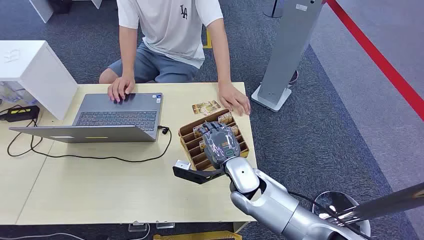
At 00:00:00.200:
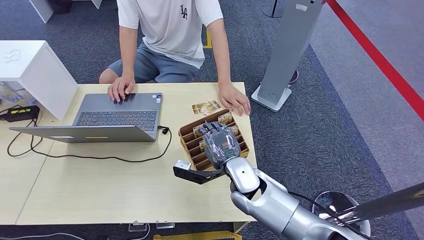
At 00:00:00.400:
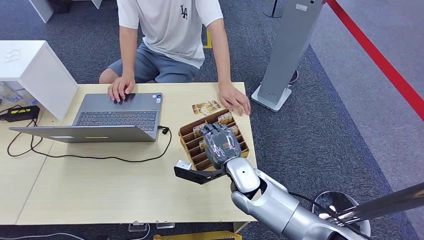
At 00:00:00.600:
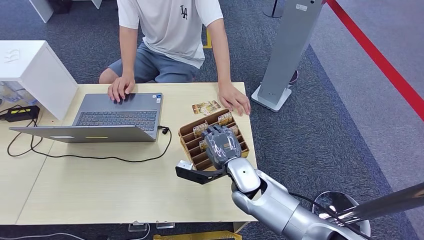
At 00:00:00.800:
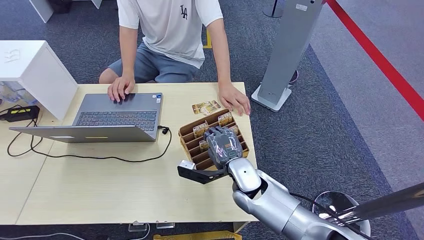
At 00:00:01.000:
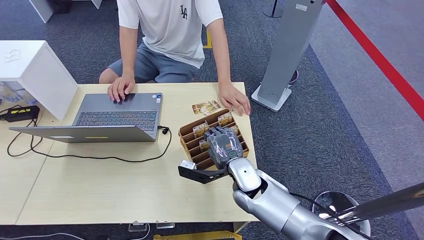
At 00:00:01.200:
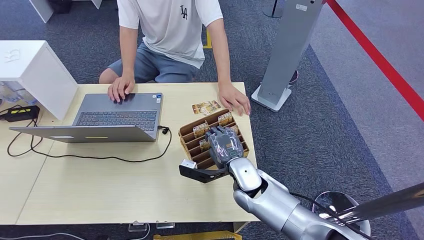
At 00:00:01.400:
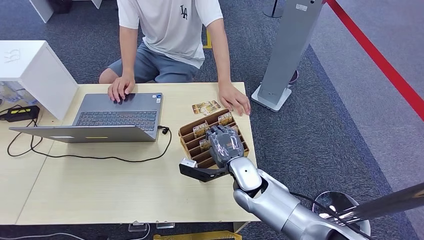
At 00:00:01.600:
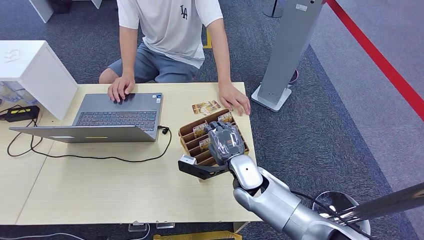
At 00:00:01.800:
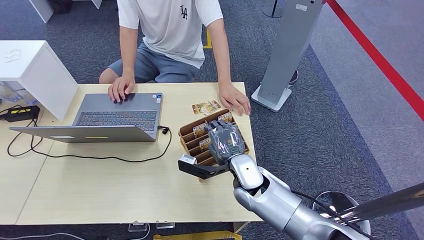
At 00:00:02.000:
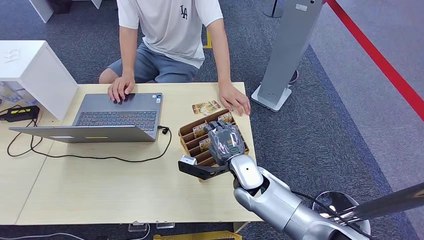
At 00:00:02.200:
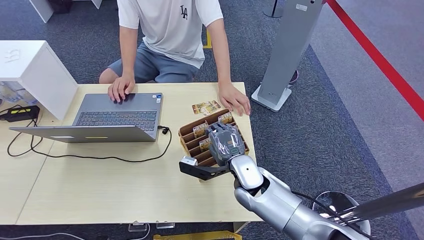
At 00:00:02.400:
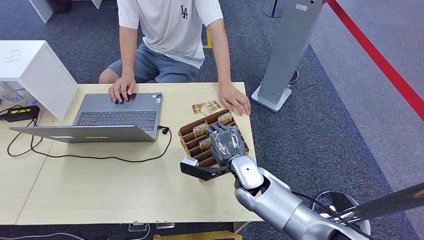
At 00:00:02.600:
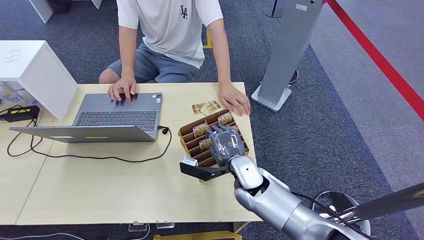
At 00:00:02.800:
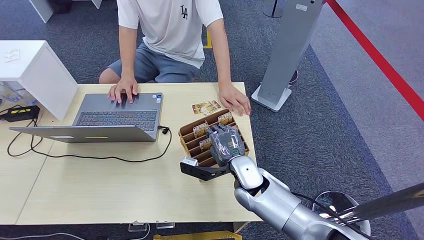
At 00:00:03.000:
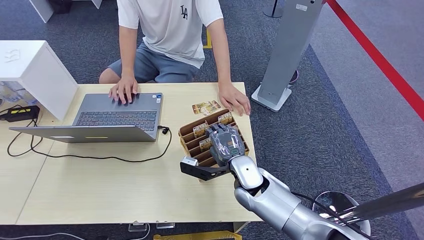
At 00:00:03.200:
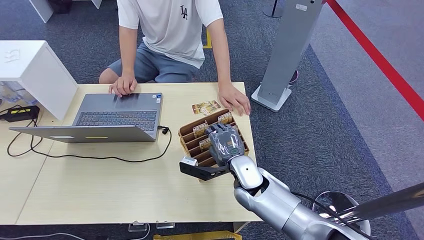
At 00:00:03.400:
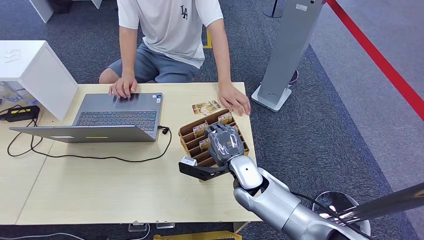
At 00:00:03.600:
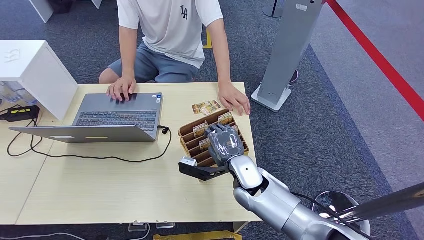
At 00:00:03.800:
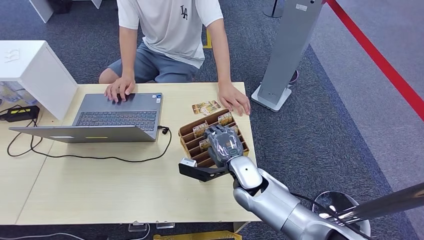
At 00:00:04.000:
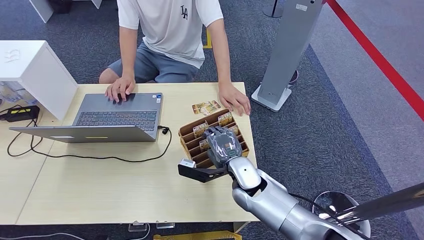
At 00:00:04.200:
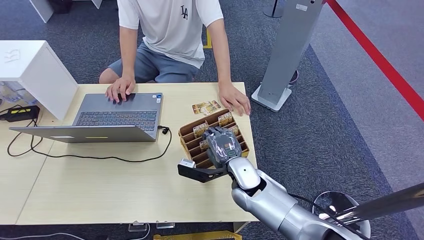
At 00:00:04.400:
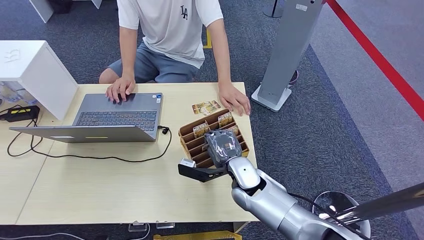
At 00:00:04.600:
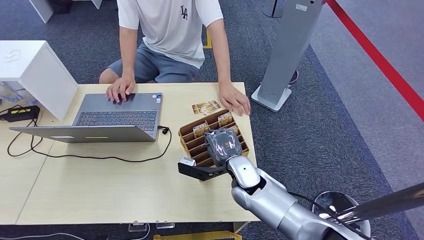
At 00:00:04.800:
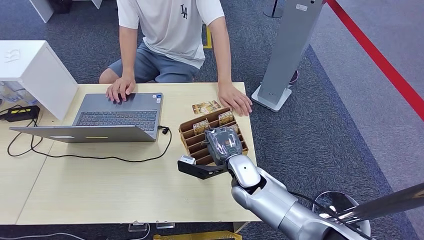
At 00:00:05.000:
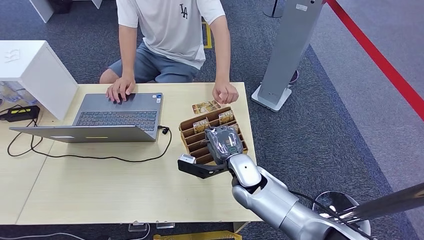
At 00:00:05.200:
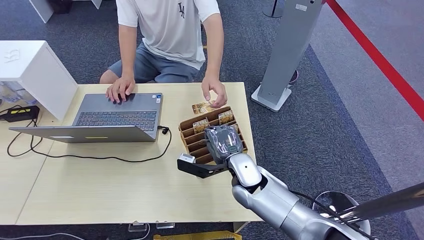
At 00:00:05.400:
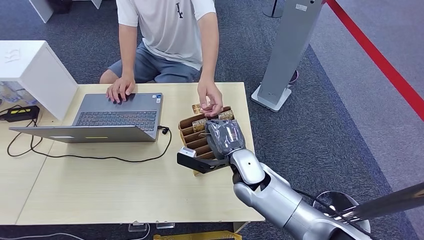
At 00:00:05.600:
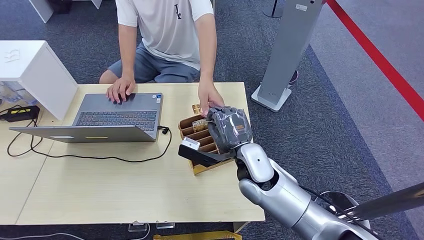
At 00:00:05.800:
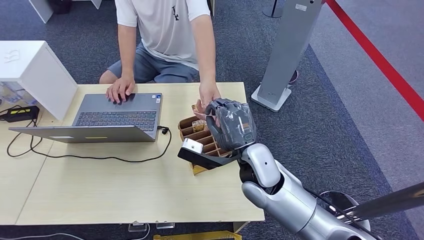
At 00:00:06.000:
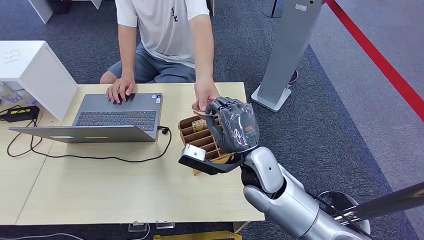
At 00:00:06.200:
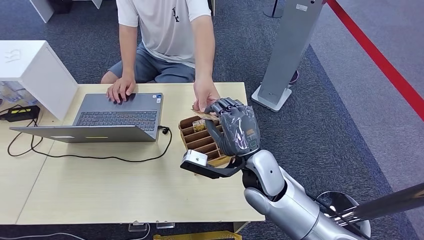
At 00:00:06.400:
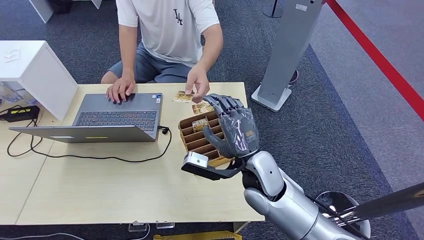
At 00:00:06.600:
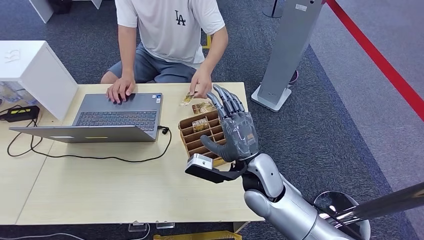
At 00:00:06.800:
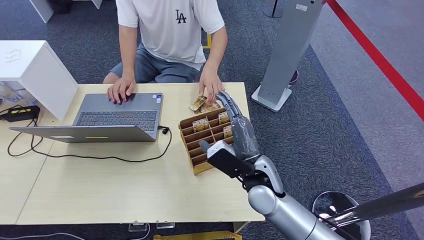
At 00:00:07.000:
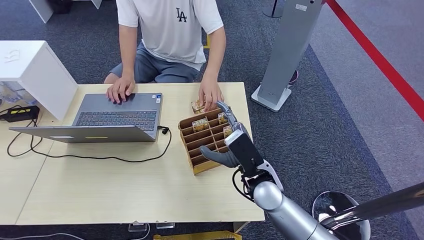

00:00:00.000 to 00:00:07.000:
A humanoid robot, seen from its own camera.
Step, 00:00:00.000 to 00:00:05.400: Pick up the room card from the card holder.
Step, 00:00:05.600 to 00:00:07.000: Hand the room card to the target.
00:00:01.400 to 00:00:02.800: The hands make only small movements.
00:00:02.800 to 00:00:04.200: The two hands keep their place.
00:00:04.200 to 00:00:05.600: The right hand heads upward, covering about 5 cm.

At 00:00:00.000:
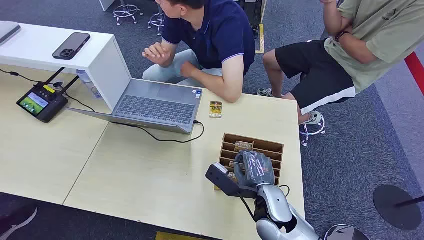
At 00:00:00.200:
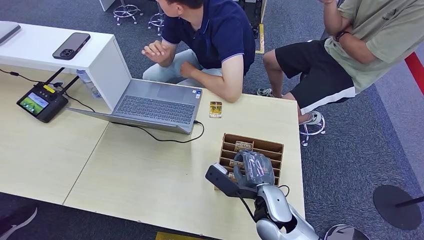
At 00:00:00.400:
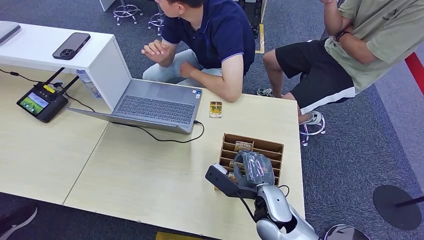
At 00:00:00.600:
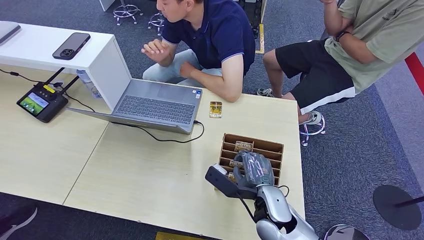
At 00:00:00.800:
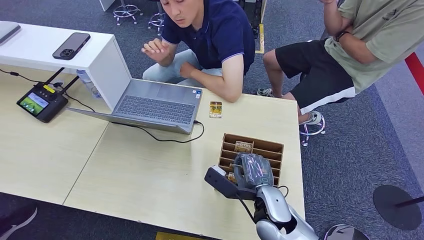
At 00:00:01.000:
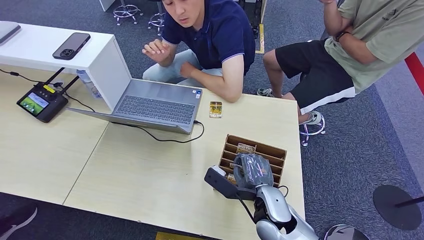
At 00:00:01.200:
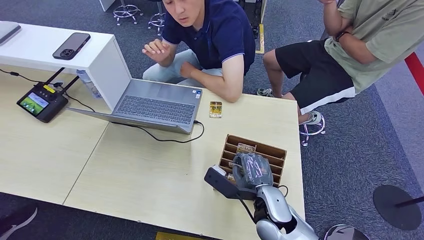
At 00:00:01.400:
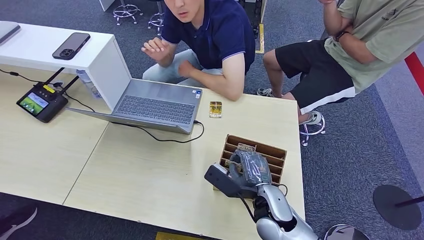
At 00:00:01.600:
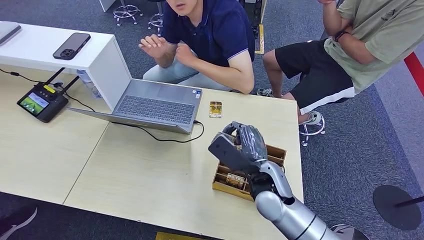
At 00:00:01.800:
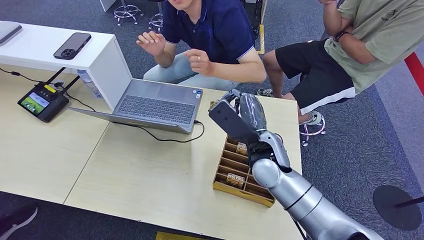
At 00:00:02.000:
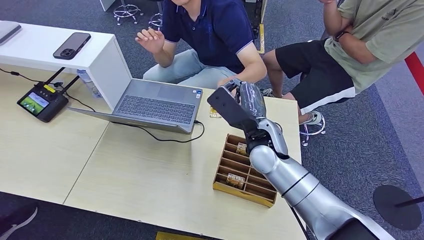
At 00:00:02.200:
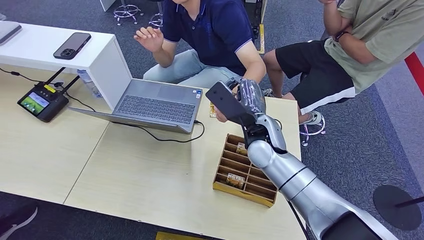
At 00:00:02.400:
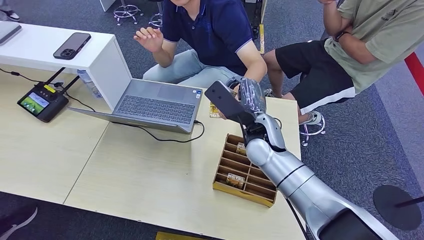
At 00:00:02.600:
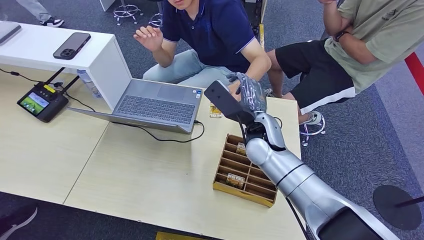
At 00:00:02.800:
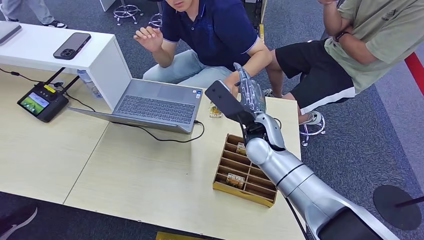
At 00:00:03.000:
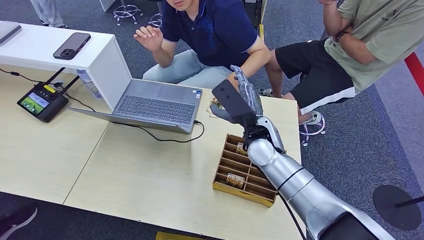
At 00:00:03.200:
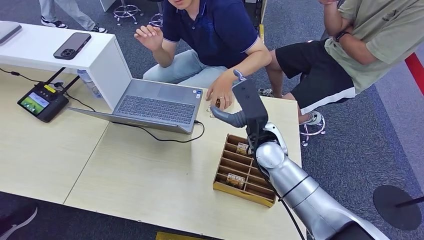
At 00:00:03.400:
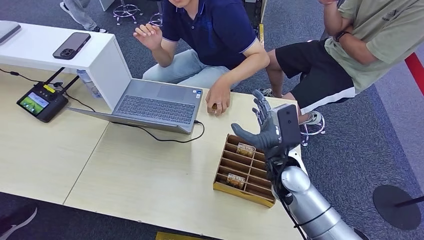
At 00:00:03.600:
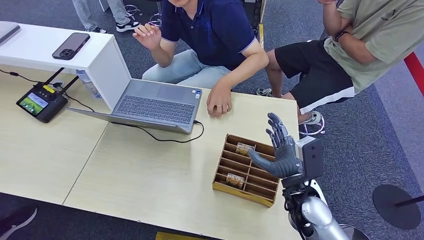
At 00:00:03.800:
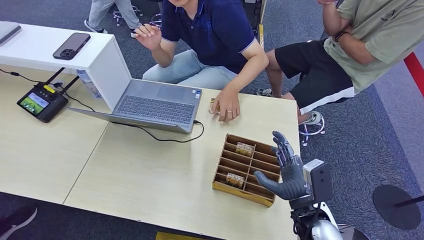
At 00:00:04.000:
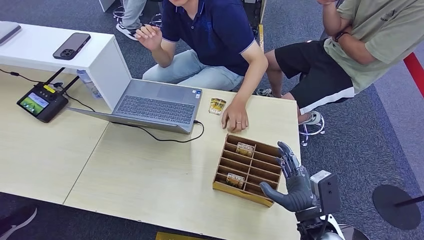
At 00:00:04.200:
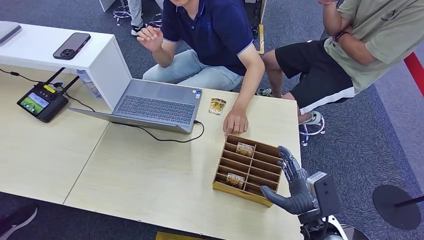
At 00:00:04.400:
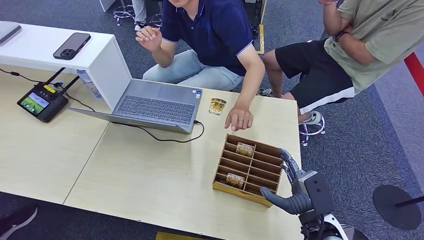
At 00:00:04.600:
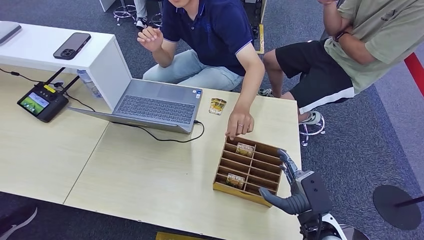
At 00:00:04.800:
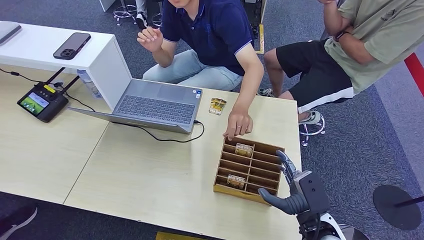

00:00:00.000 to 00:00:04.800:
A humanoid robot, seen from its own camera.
Step, 00:00:00.000 to 00:00:01.600: Pick up the room card from the card holder.
Step, 00:00:02.000 to 00:00:04.800: Hand the room card to the target.
00:00:01.600 to 00:00:03.200: The right hand moves forward, about 10 cm.
00:00:03.200 to 00:00:04.800: The right hand goes roughly 25 cm backward, to the right and downward.
